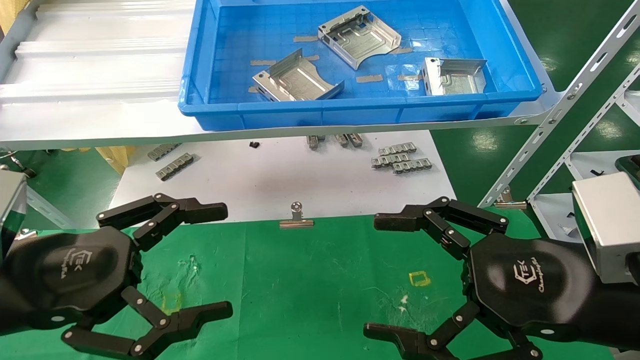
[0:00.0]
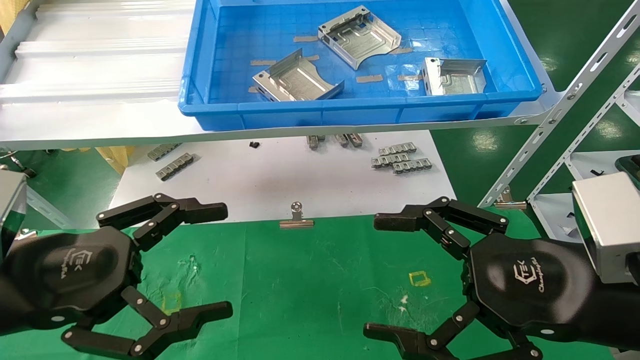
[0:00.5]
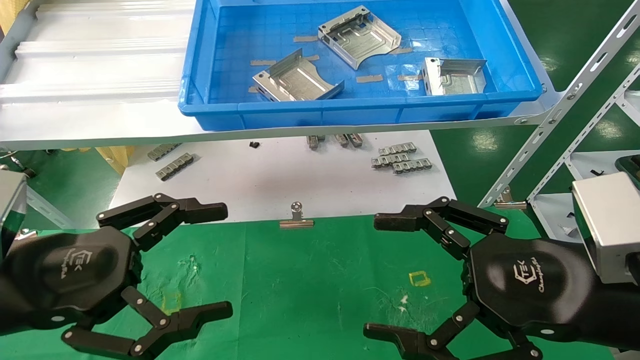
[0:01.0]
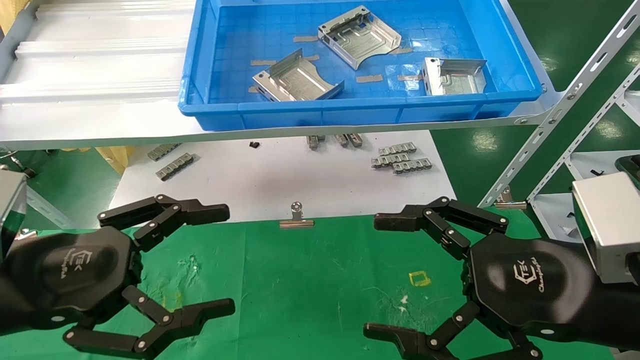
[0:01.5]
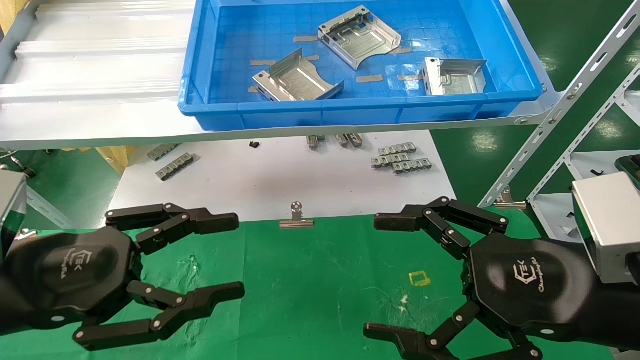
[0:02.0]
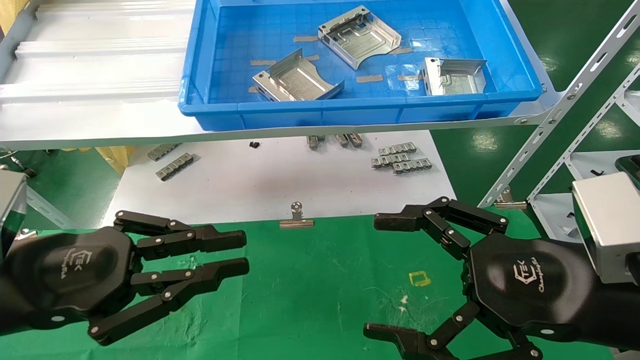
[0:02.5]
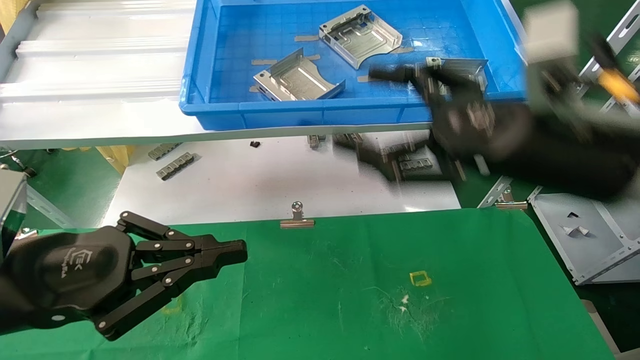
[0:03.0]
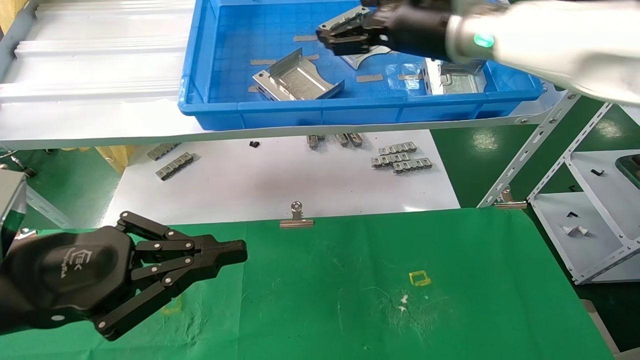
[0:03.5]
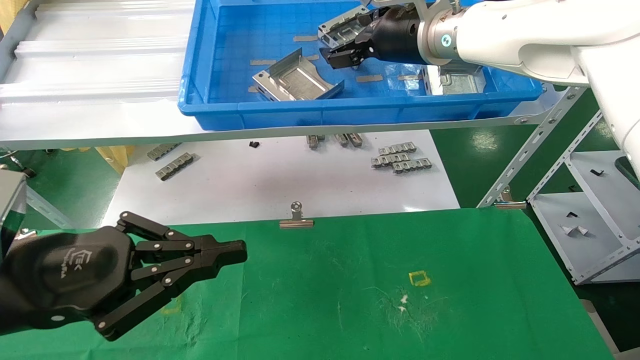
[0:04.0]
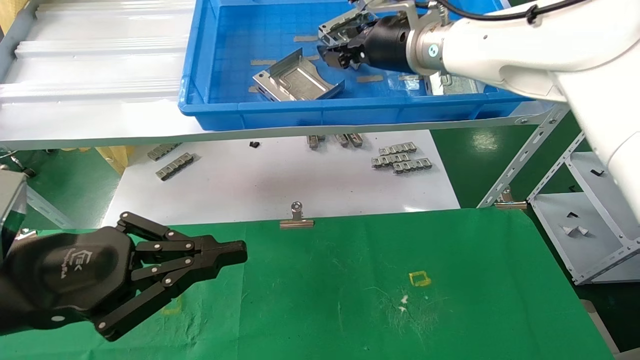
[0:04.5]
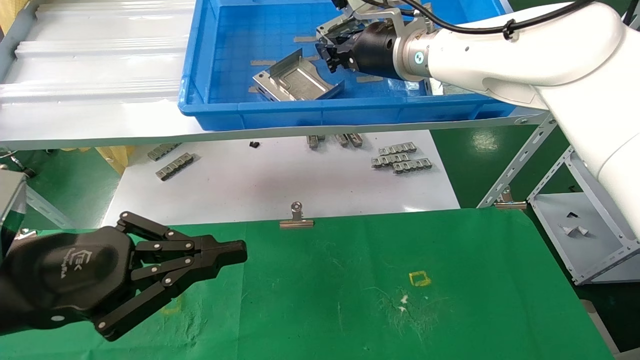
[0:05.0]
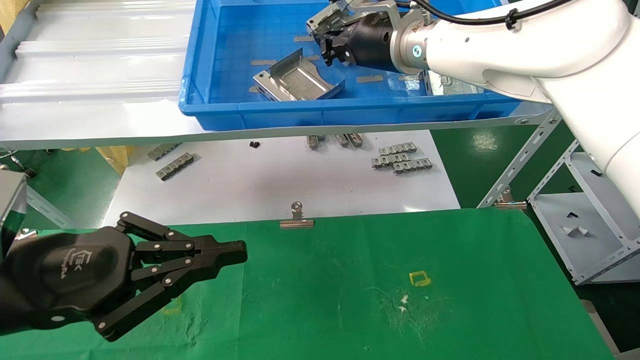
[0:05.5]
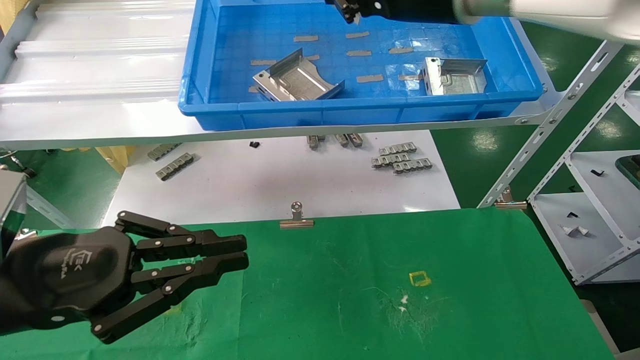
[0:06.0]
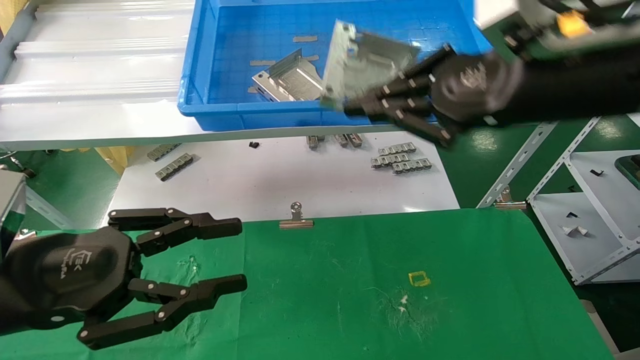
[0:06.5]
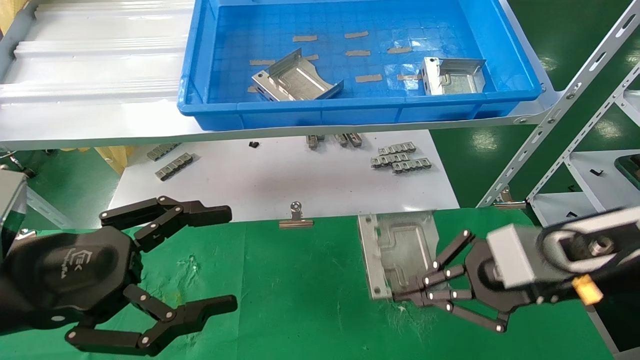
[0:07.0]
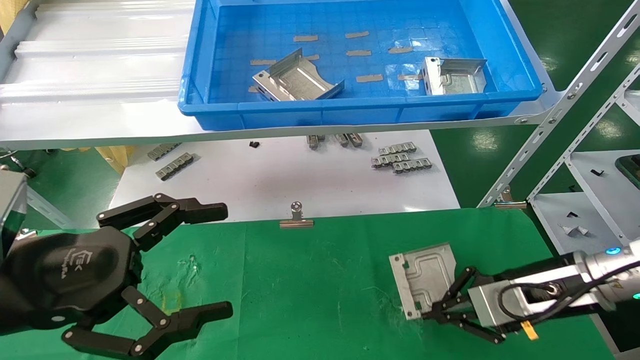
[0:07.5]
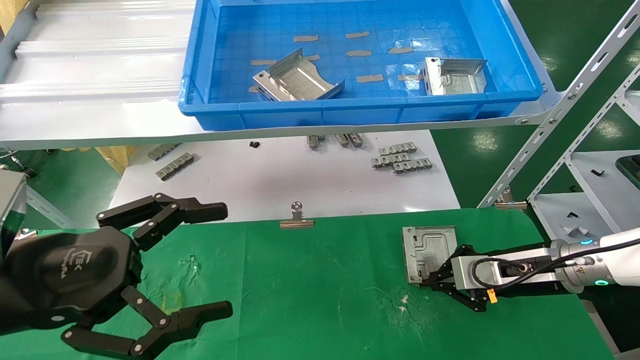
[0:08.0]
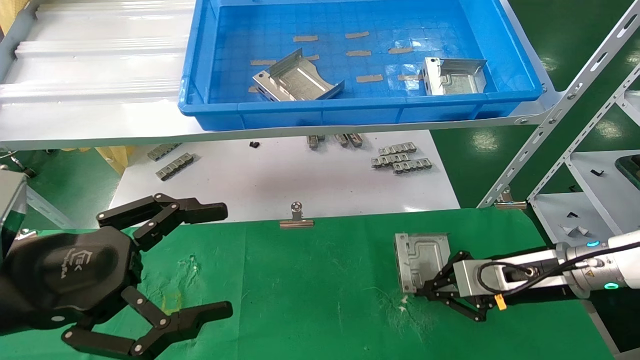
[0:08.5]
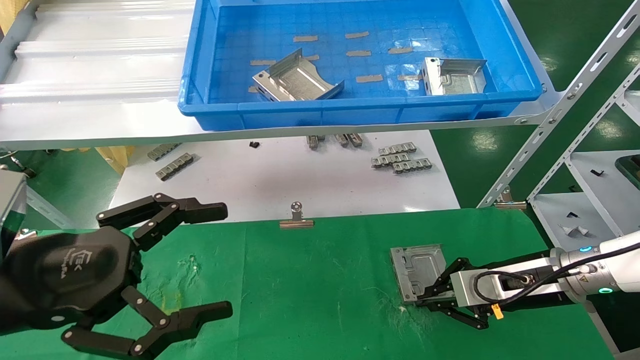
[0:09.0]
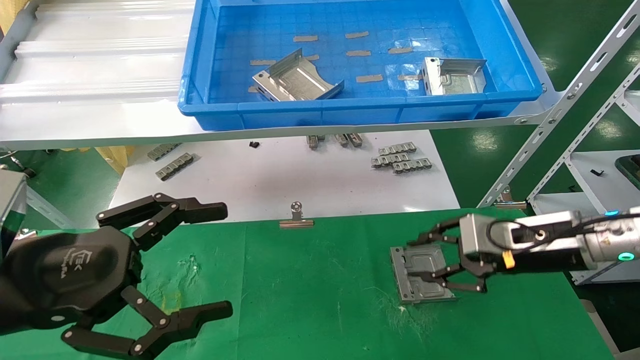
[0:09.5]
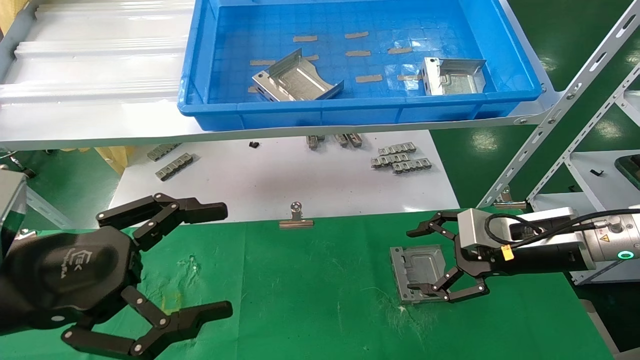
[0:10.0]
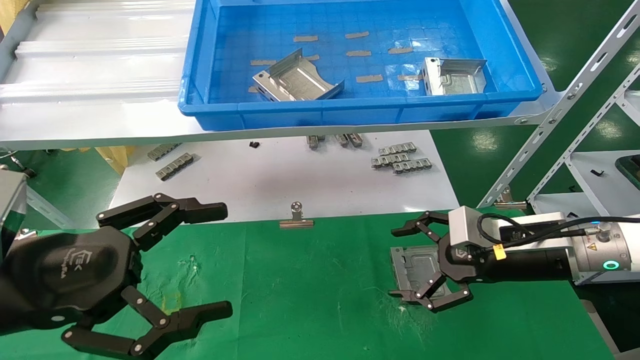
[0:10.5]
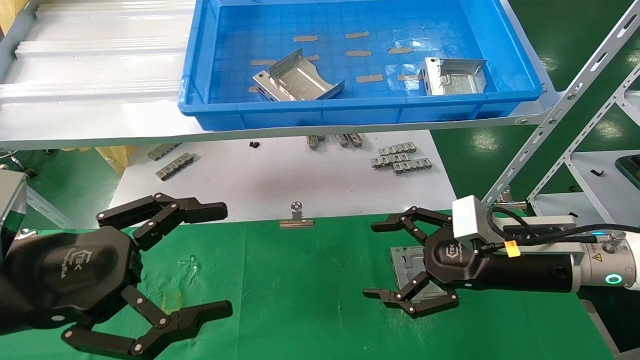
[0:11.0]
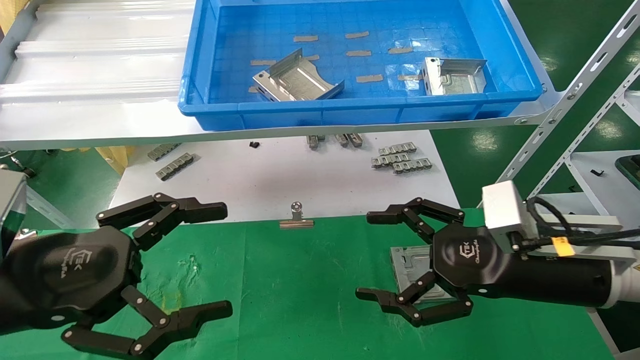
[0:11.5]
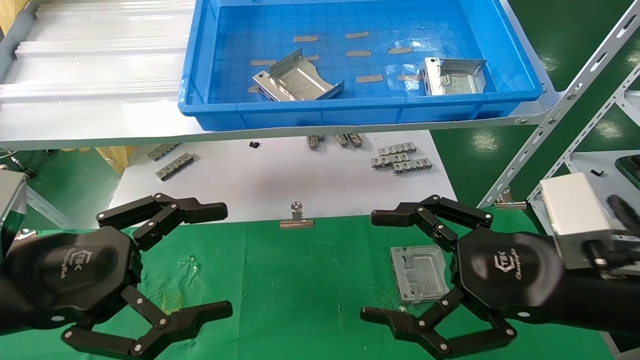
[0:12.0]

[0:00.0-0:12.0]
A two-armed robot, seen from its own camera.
Task of the whole recording: use the mechanical arm to pick up the parts and place them on the table.
Step, 0:02.5 to 0:03.5: Pick up the hard drive bracket from the feeding area.
Step, 0:04.0 to 0:09.0: Place the hard drive bracket into the box.
0:00.0 to 0:02.0: Both grippers stay put.
0:02.0 to 0:04.0: The right gripper heads forward, upward and to the left, covering about 35 cm. Meanwhile the left gripper closes.
0:04.0 to 0:06.0: The right gripper travels backward by about 5 cm, and closes up.
0:06.0 to 0:08.0: The right gripper heads downward and to the right, covering about 35 cm. Meanwhile the left gripper opens up.
0:08.0 to 0:10.0: The right gripper goes approximately 5 cm upward, and opens up.
0:10.0 to 0:12.0: The right gripper is displaced backward by approximately 15 cm.
